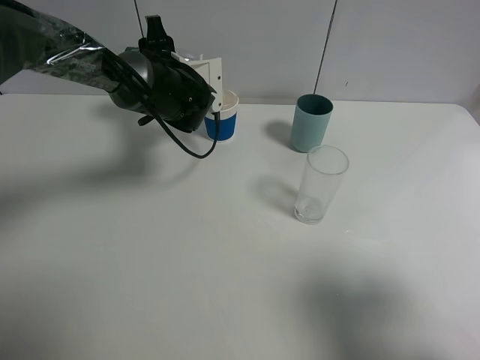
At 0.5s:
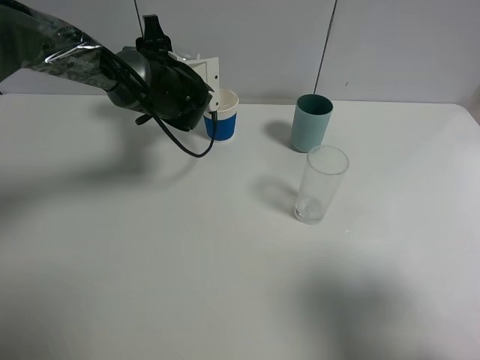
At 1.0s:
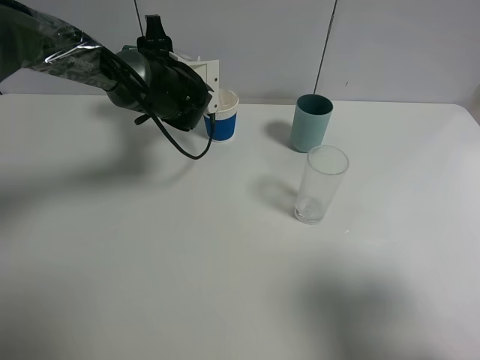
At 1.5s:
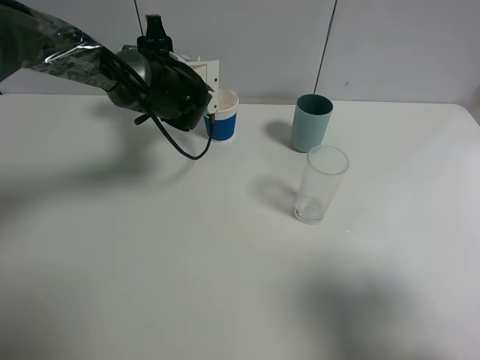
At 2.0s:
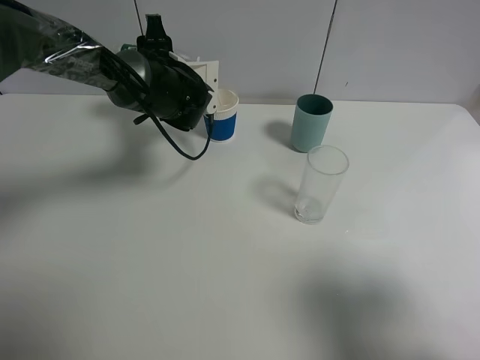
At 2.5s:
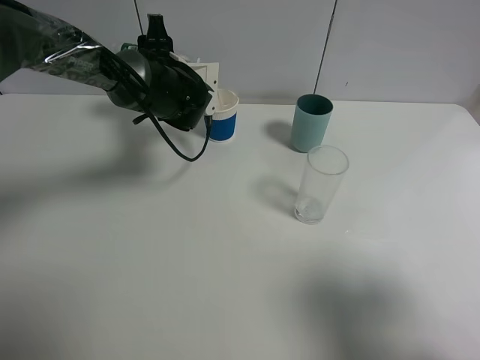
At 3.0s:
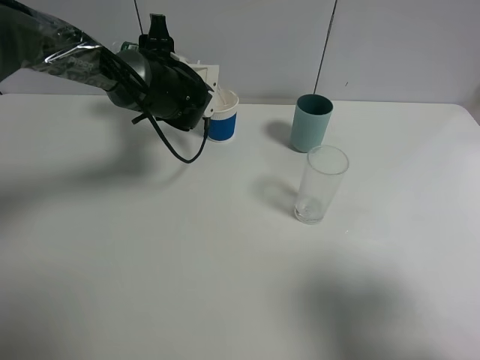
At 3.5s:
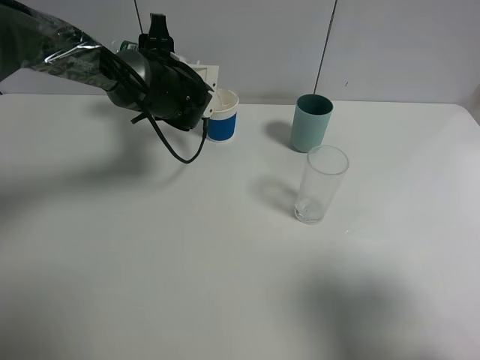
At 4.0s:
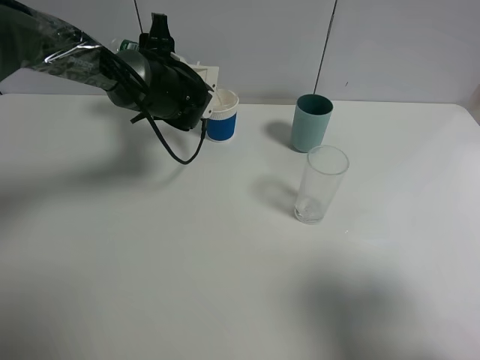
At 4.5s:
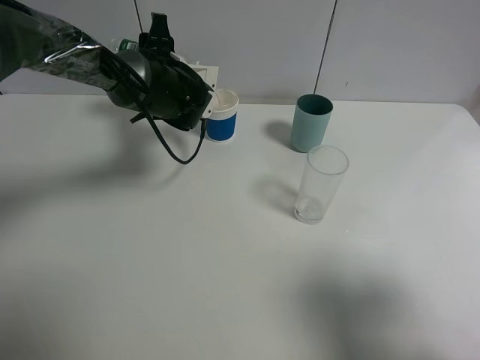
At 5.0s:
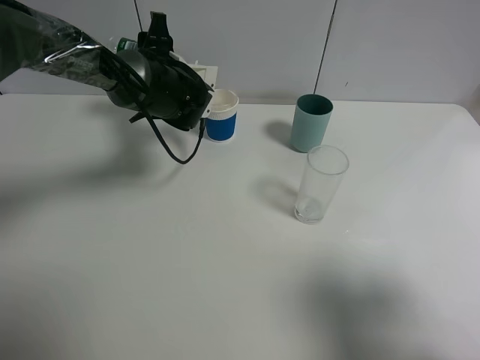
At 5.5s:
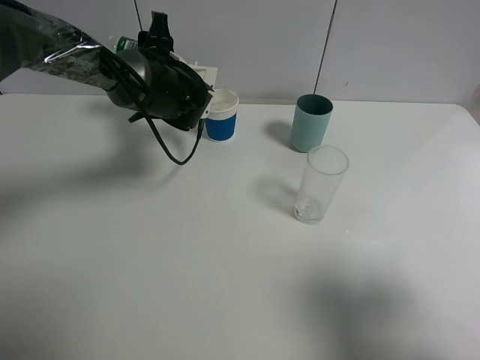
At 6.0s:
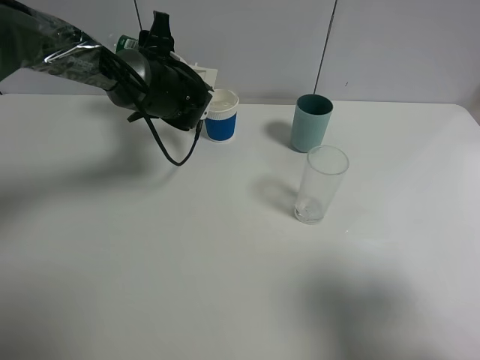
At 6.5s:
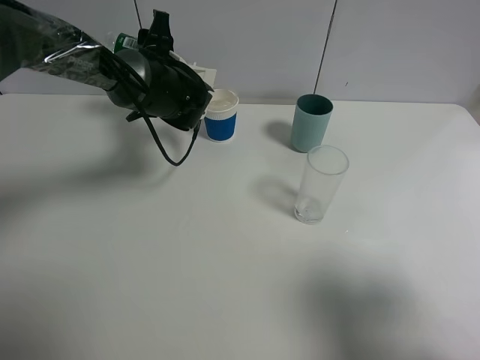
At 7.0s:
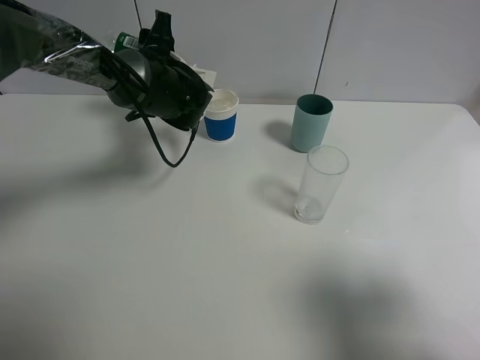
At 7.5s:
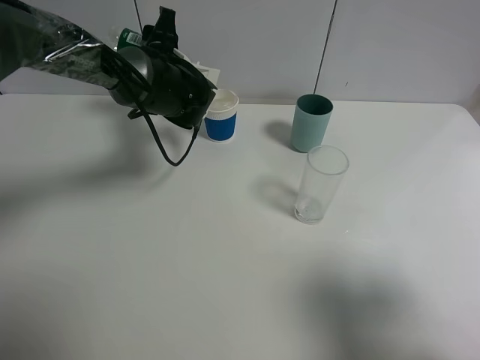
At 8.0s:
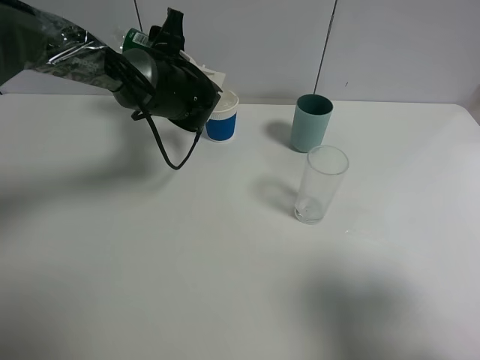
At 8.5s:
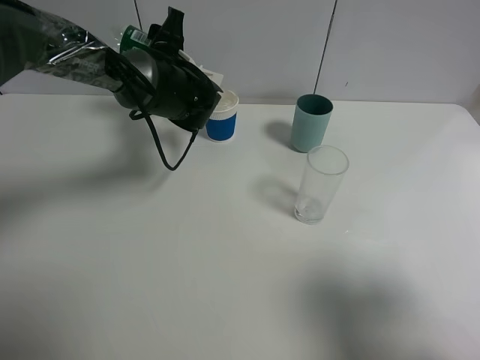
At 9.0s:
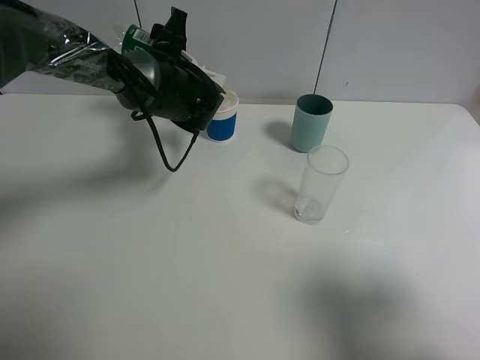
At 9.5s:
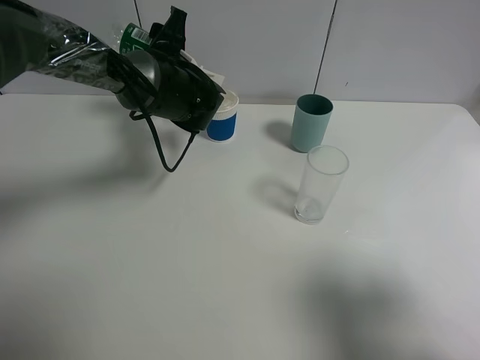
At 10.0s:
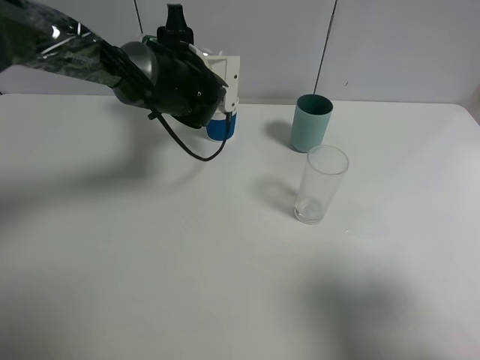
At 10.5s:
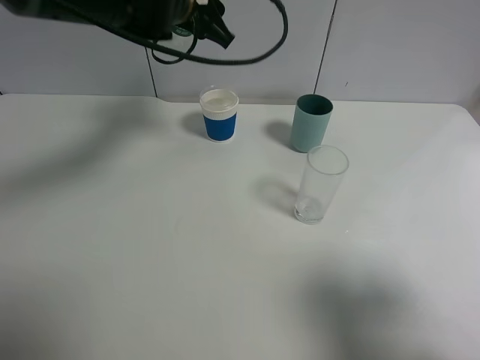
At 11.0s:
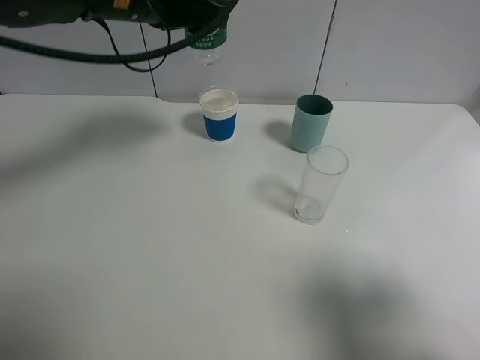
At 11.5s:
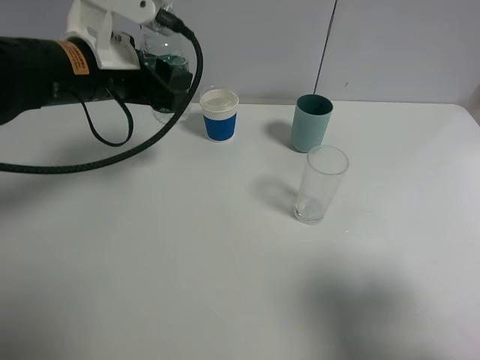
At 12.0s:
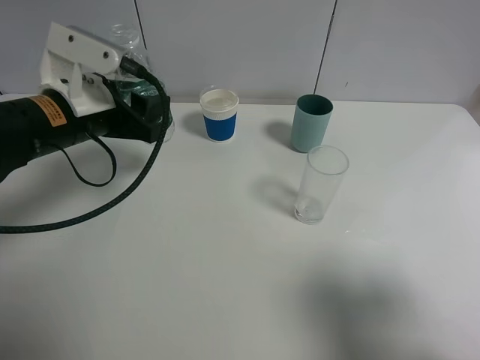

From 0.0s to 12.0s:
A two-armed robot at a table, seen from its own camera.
Task of the whole recording: use a gripper to hold the bottle of the drink and pour it into a random cup.
Step, from 0.0s to 10.0s: Pour the mineral water into the paper cup with the left gripper.
From 0.0s to 2.0s: The two grippers keep their place.
From 2.0s to 4.0s: There are only small adjustments of the grippers.
From 6.0s to 8.0s: The grippers make only small movements.
From 10.0s to 12.0s: The left gripper is displaced backward and to the left by roughly 20 cm.

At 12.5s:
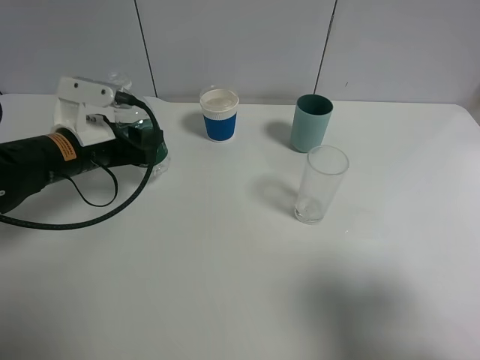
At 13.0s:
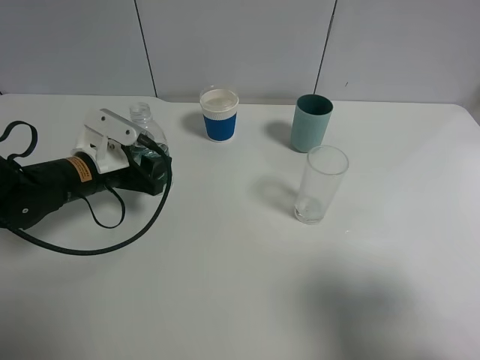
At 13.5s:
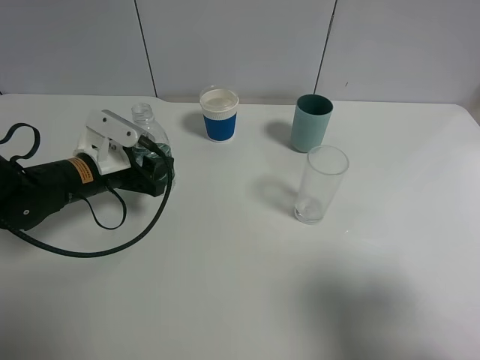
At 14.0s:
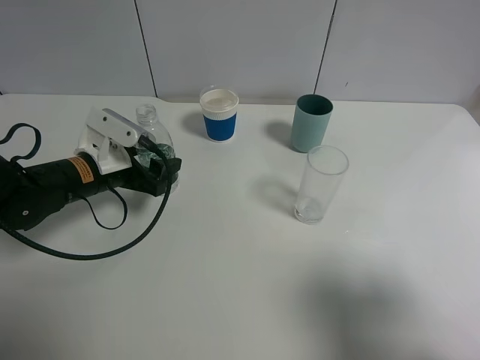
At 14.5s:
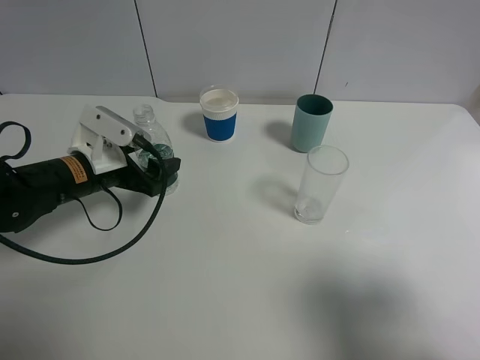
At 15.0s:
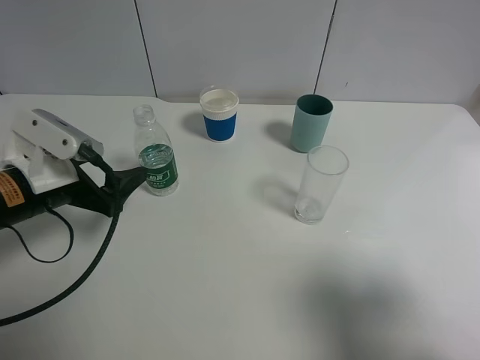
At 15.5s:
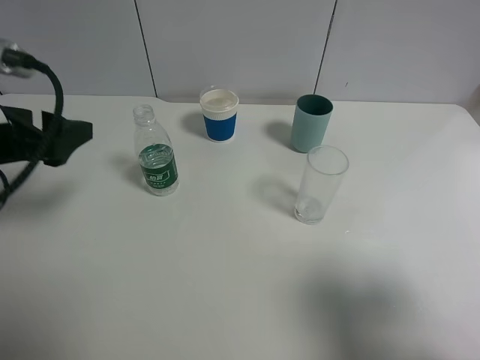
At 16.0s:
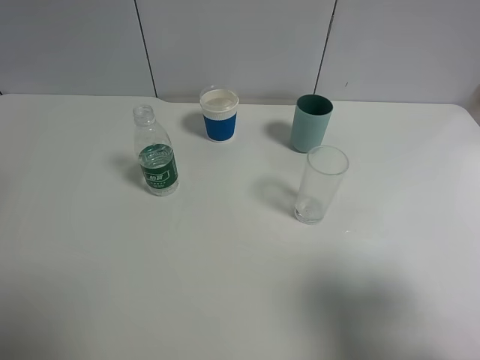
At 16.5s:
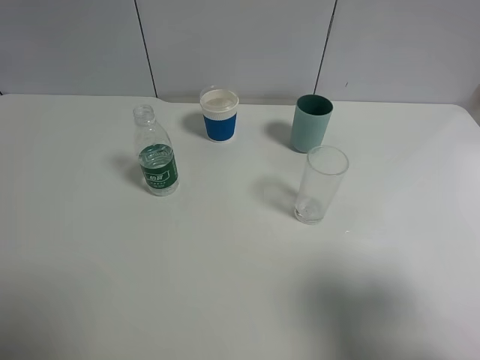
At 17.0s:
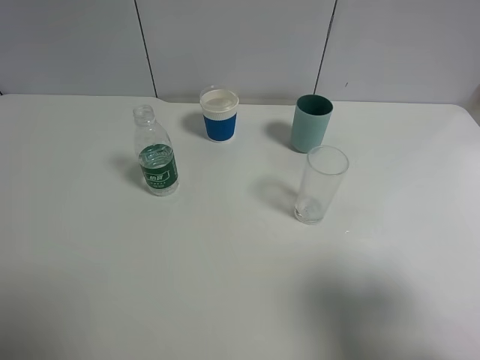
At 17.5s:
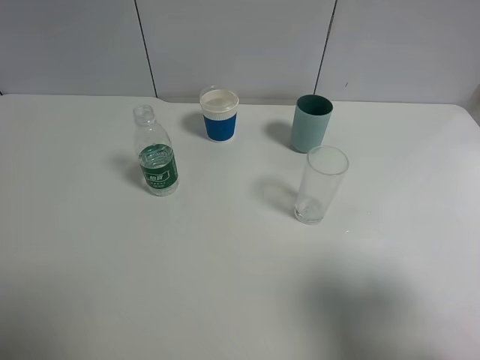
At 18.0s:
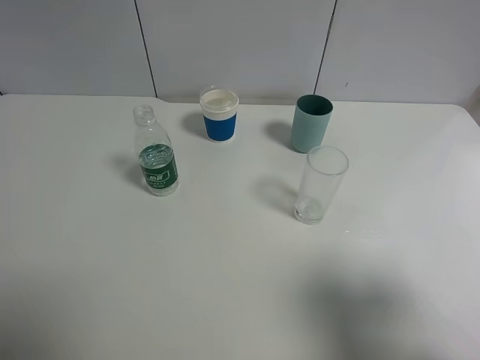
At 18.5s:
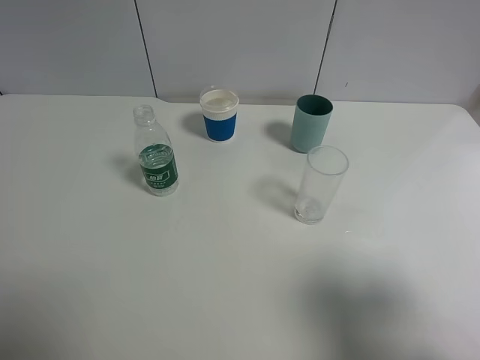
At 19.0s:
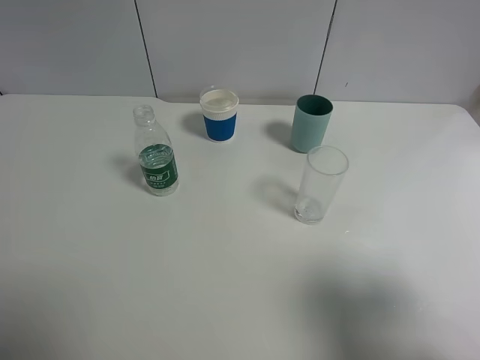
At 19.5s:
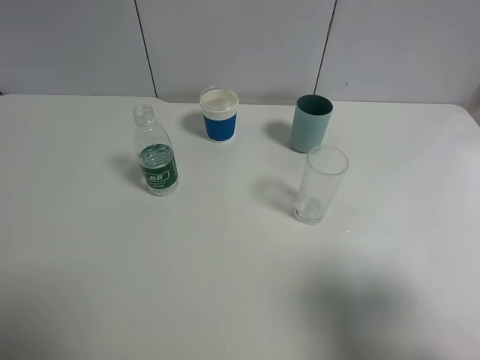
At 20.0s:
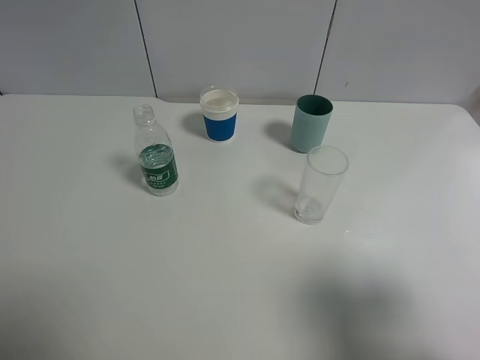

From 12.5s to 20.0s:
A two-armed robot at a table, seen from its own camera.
Task of the whole recording: use a gripper to hold the bottle of the drink and pour it into a random cup.
From 12.5s to 14.5s: The left gripper opens its fingers.
From 14.5s to 16.5s: The left gripper goes roughly 35 cm upward, backward and to the left.
From 18.0s to 20.0s: Both grippers stay put.
